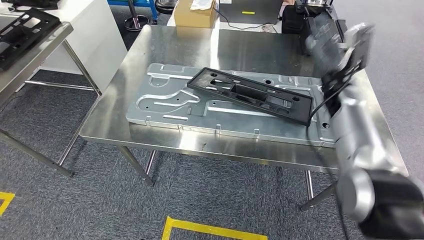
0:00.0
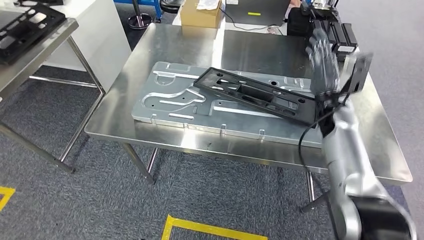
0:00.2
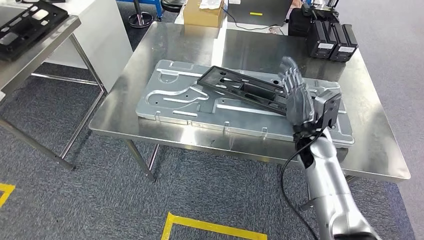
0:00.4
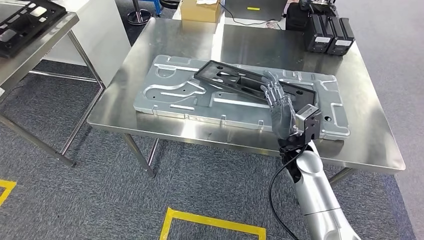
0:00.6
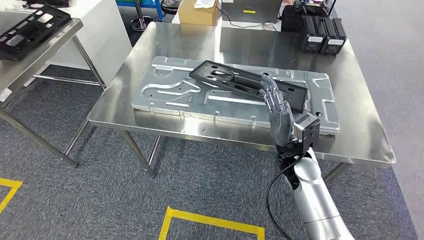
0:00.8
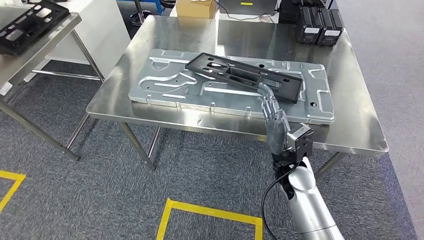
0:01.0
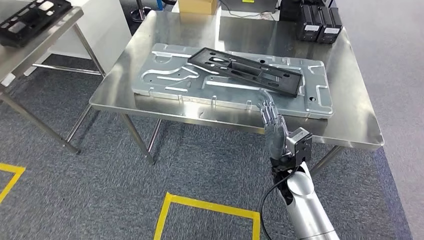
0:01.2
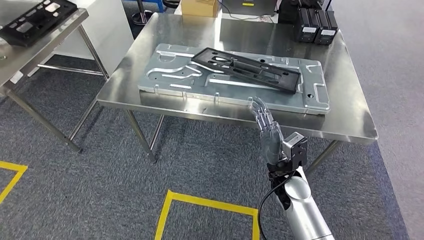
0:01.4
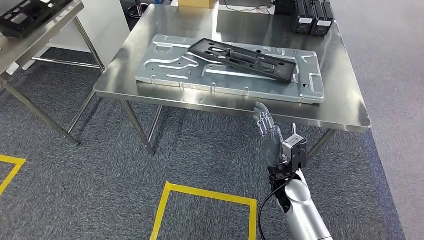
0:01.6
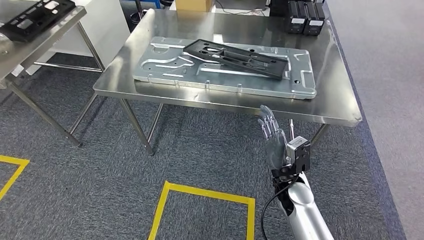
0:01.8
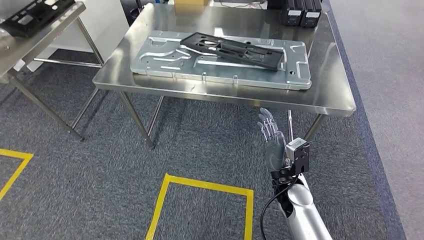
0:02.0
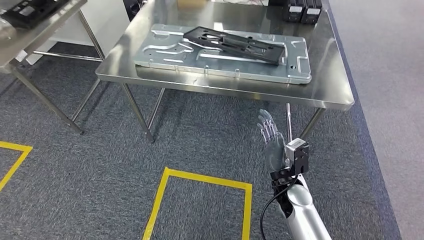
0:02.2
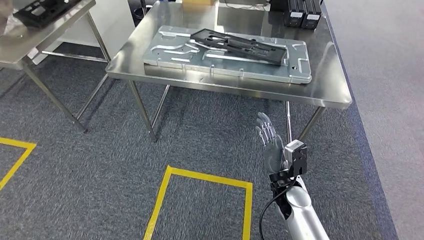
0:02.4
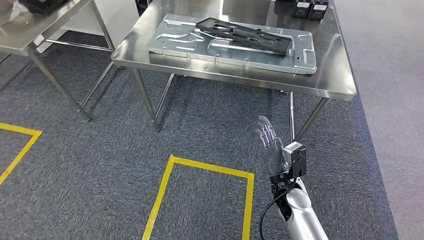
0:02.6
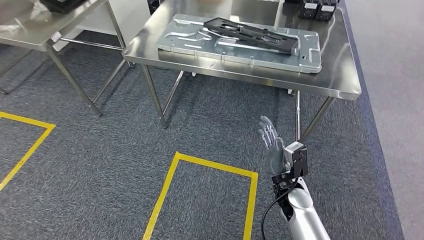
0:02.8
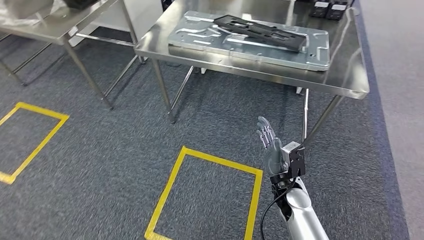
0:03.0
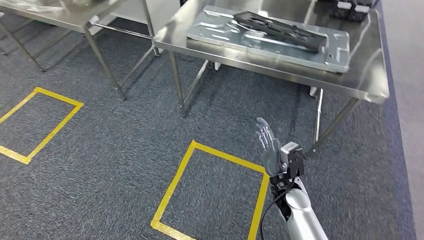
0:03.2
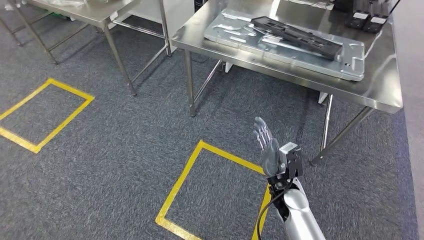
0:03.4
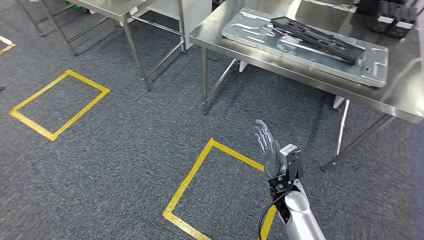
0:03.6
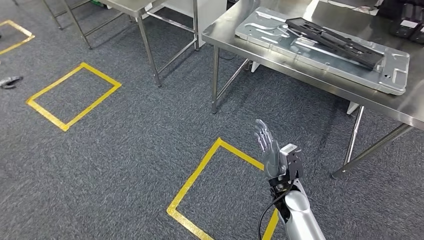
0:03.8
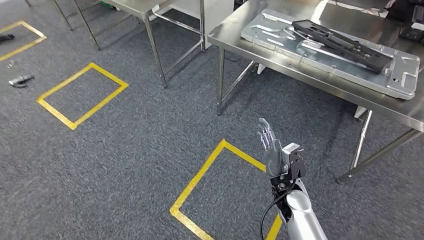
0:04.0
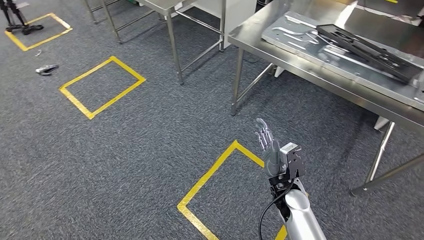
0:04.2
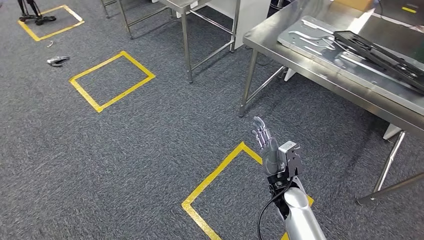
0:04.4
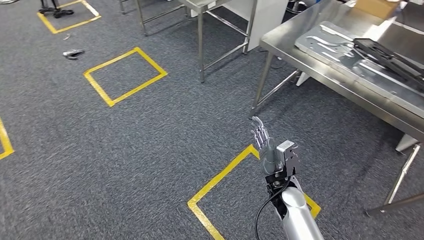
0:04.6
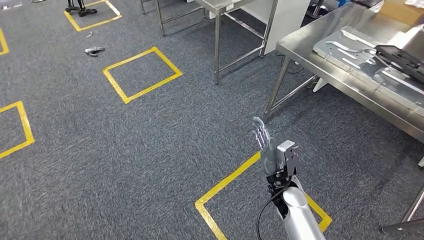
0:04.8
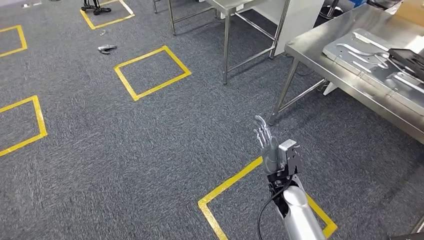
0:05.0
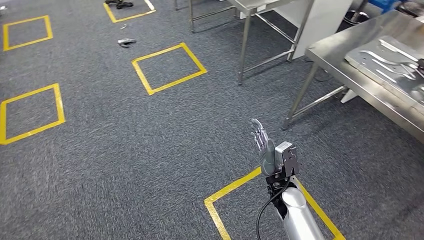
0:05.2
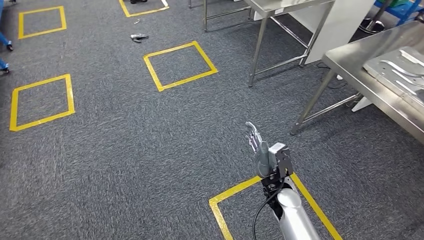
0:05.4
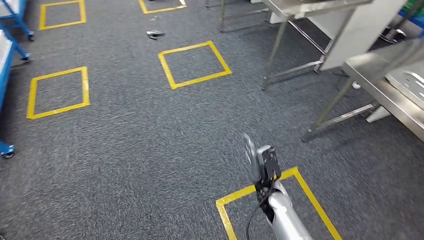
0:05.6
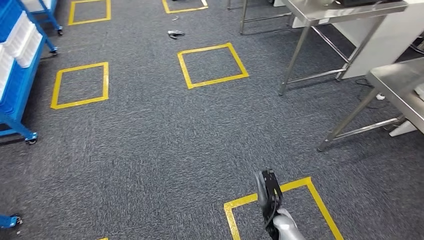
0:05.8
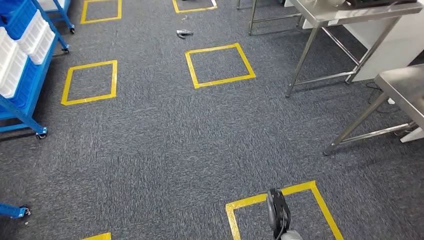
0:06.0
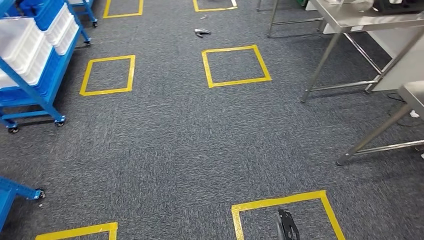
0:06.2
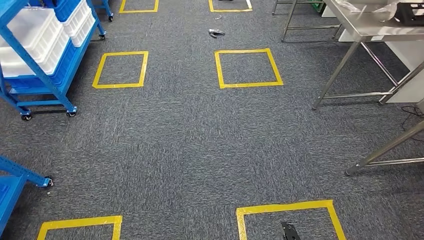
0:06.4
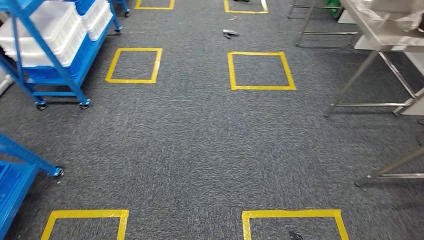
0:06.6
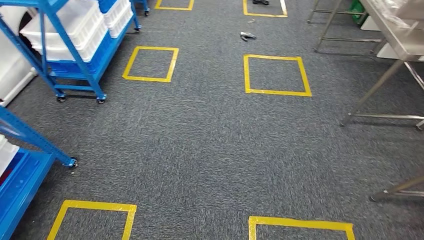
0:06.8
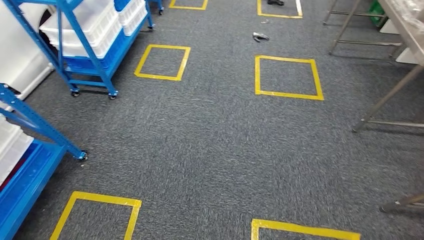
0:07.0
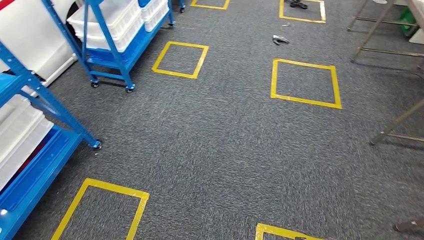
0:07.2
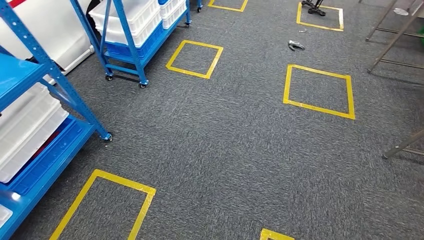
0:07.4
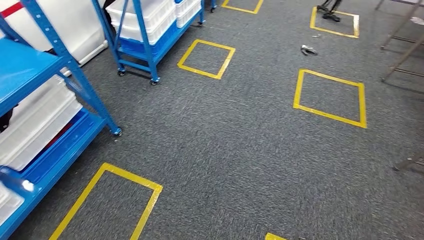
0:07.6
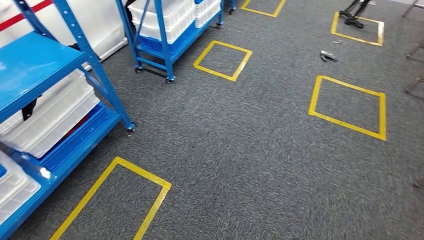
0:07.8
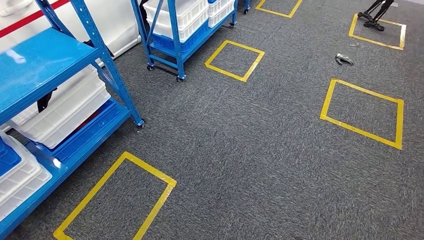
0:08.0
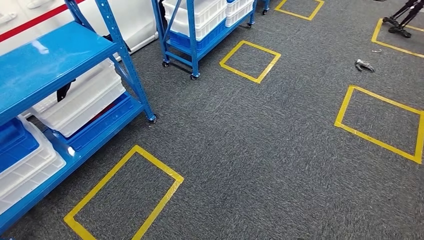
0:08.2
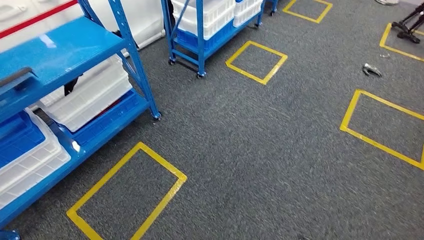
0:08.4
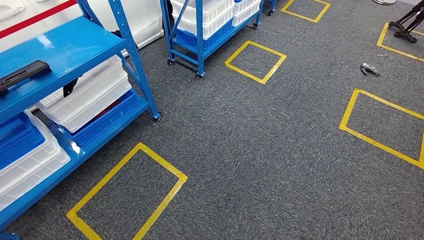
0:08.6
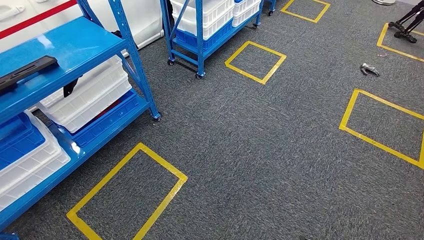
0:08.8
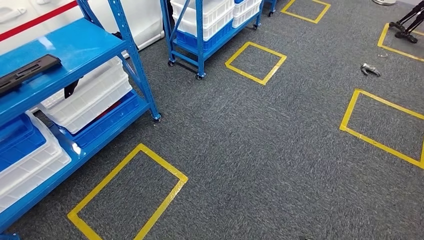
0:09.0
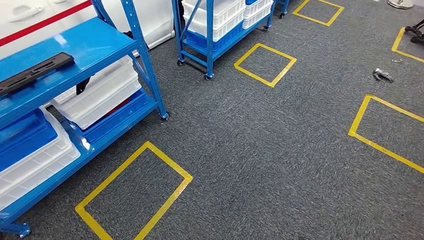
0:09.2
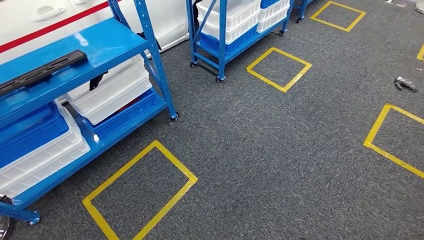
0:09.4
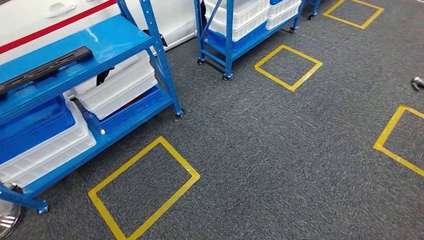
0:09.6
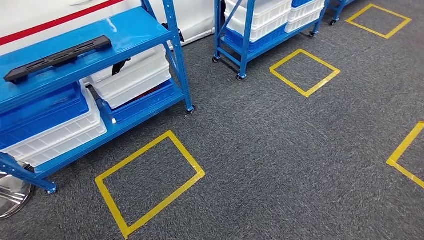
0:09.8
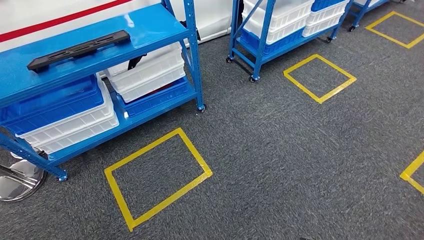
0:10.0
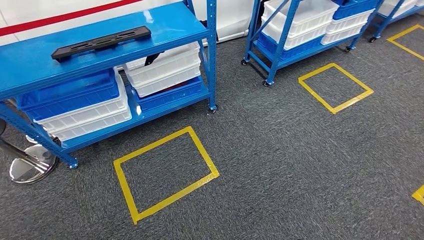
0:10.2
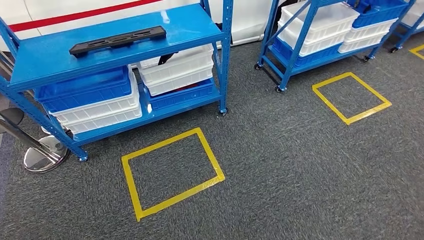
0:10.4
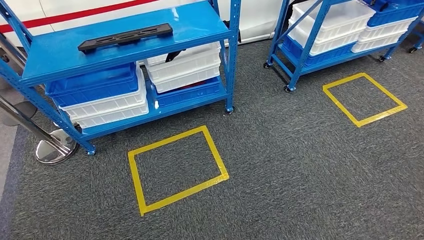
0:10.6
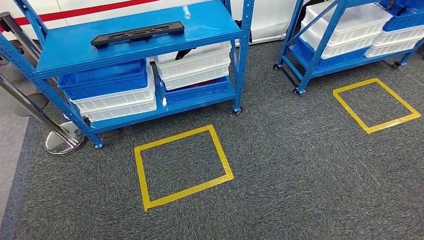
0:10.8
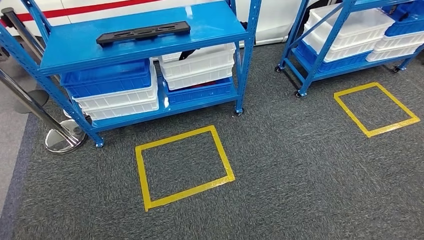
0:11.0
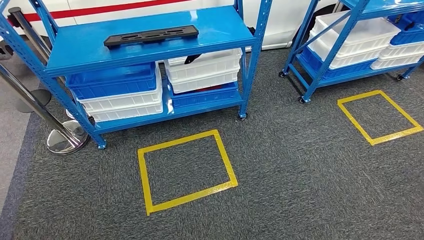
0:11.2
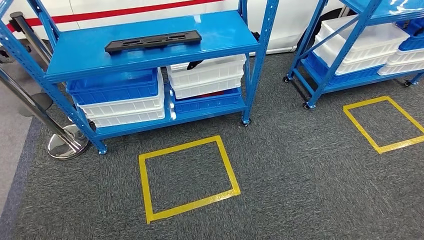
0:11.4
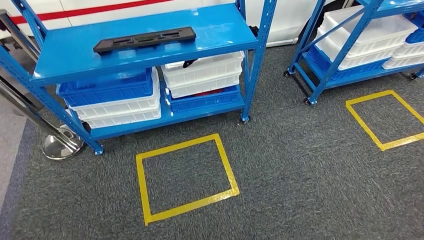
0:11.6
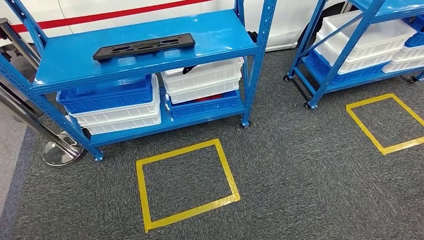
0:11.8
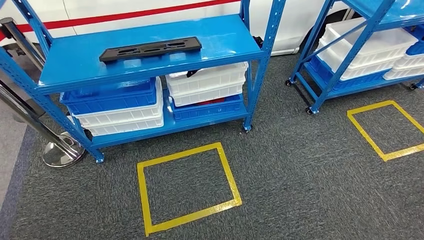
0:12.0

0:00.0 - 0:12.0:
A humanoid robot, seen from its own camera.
Step, 0:00.0 - 0:02.4: Insert the large material into the corresponding slot on the workbench.

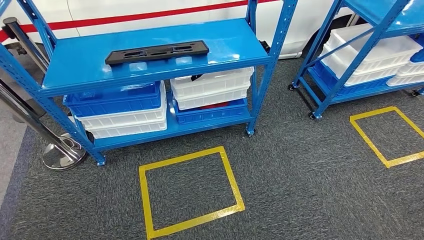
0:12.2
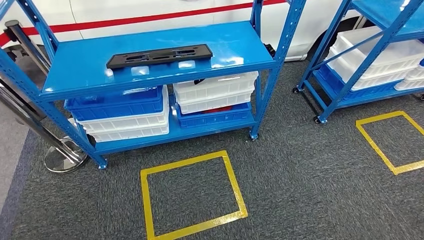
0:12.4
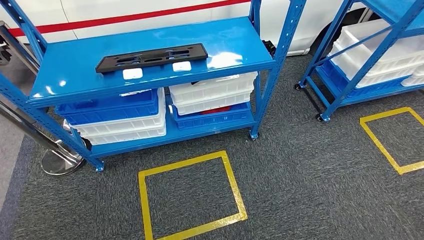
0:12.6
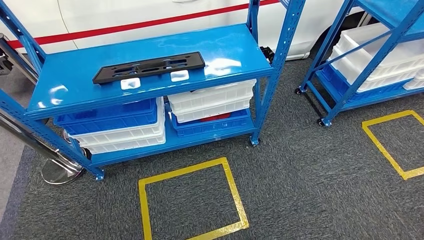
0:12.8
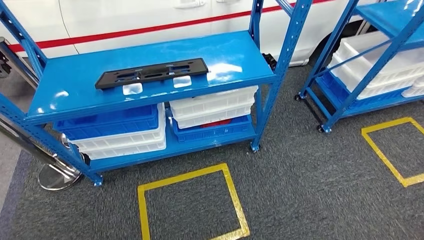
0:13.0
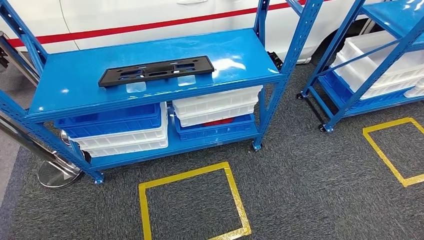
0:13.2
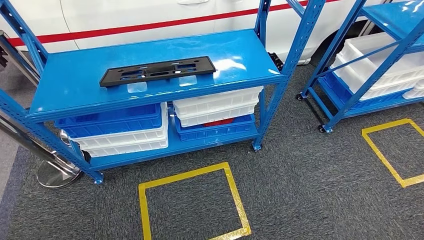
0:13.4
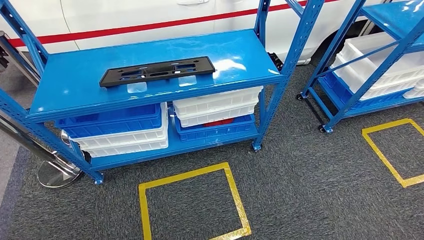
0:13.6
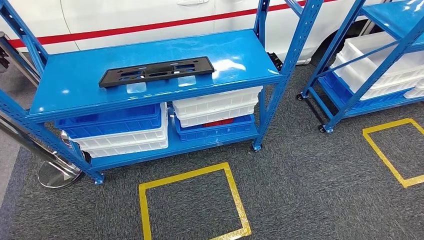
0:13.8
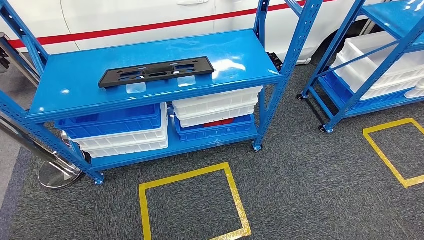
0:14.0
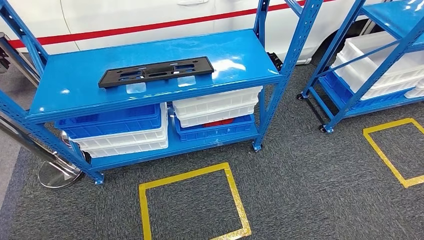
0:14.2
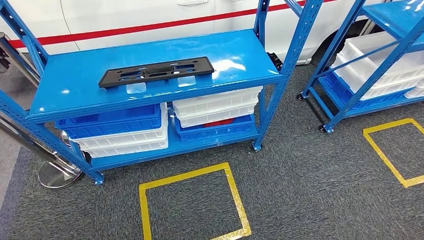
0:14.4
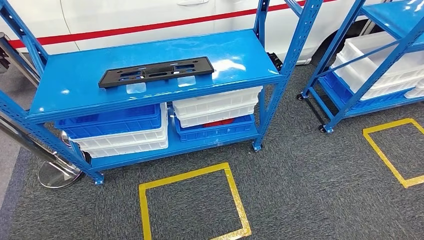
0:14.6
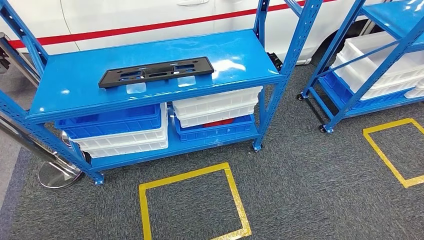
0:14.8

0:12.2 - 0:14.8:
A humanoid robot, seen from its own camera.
Step, 0:12.2 - 0:14.8: Return to the initial position at the shelf.
0:13.4 - 0:14.8: The hands move only a little.
